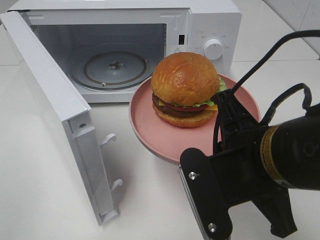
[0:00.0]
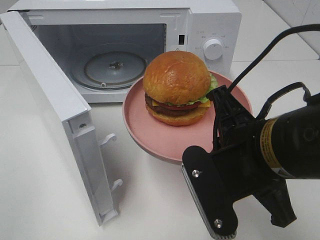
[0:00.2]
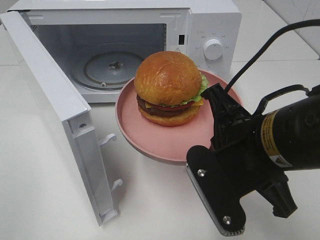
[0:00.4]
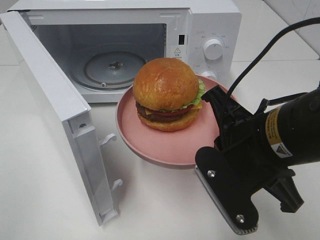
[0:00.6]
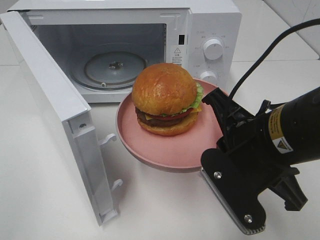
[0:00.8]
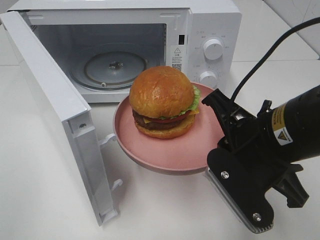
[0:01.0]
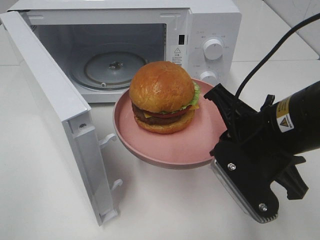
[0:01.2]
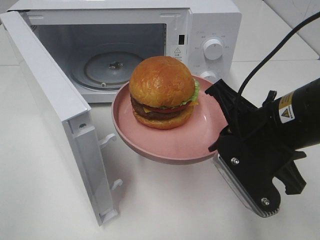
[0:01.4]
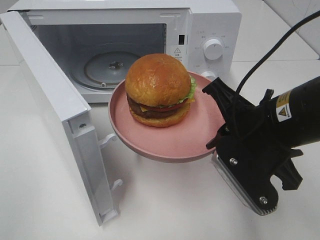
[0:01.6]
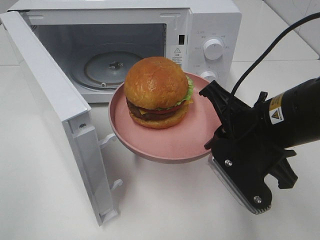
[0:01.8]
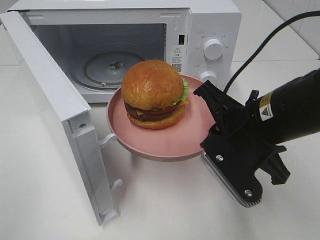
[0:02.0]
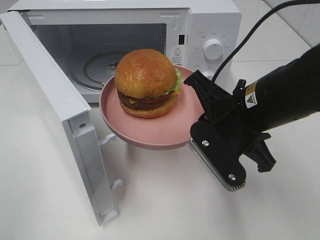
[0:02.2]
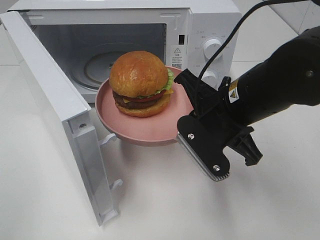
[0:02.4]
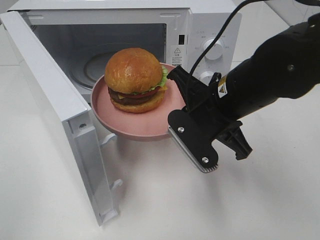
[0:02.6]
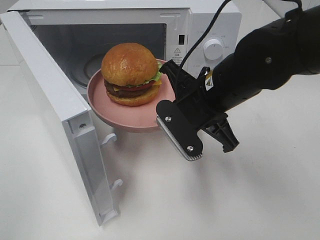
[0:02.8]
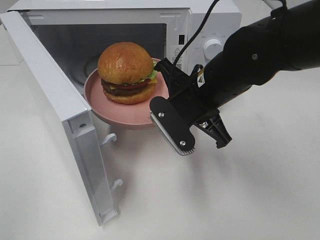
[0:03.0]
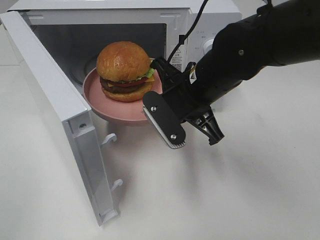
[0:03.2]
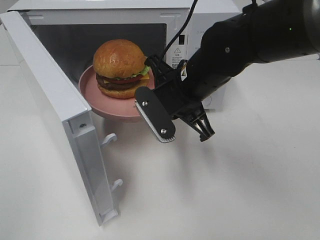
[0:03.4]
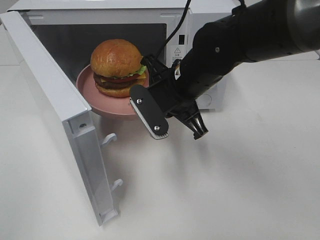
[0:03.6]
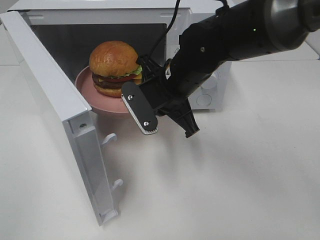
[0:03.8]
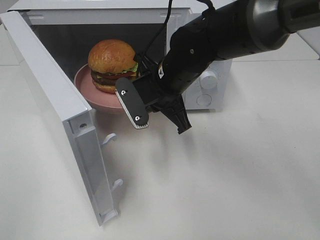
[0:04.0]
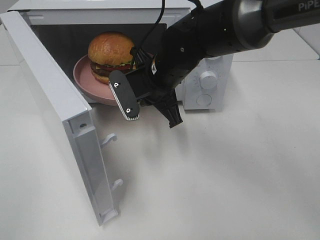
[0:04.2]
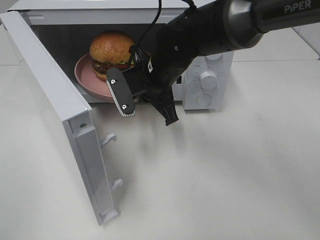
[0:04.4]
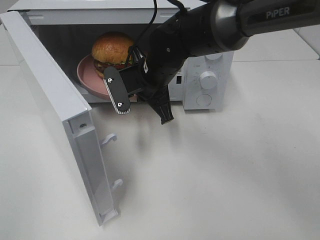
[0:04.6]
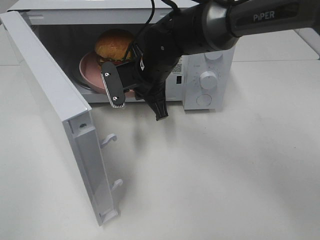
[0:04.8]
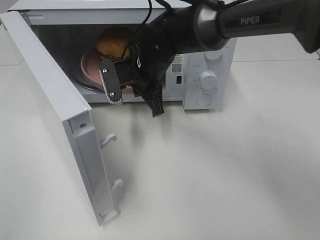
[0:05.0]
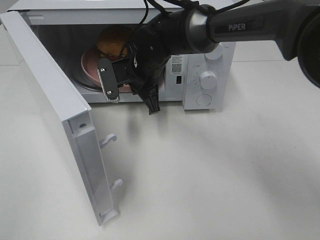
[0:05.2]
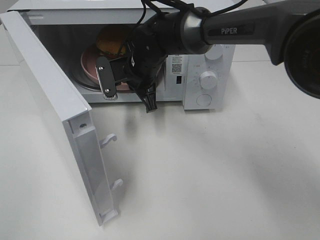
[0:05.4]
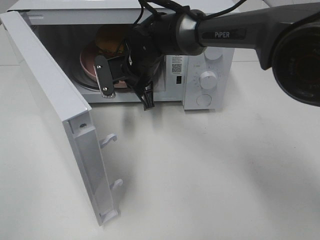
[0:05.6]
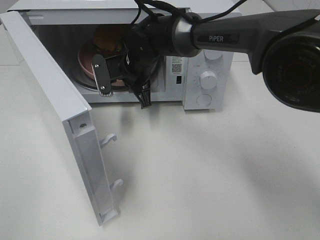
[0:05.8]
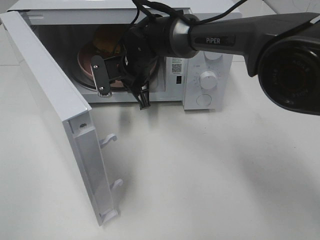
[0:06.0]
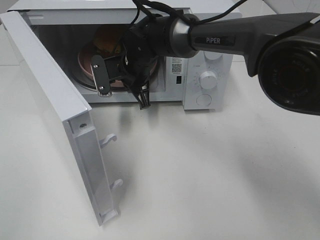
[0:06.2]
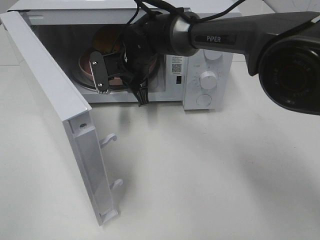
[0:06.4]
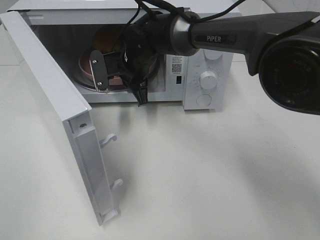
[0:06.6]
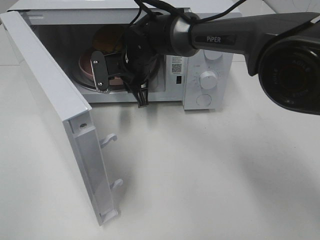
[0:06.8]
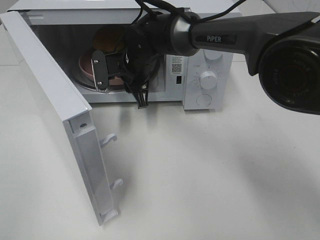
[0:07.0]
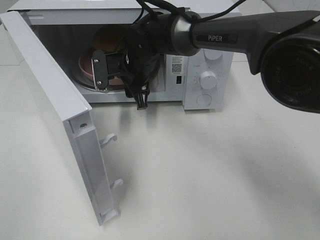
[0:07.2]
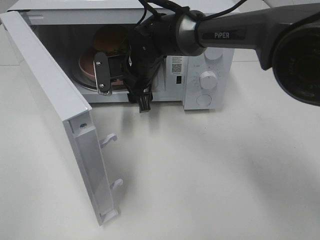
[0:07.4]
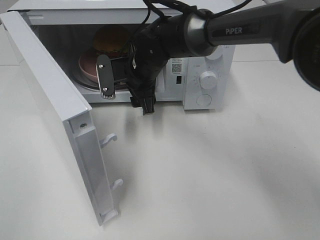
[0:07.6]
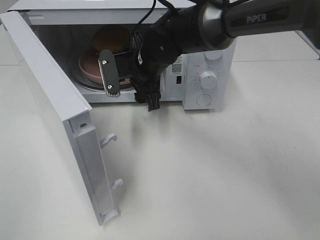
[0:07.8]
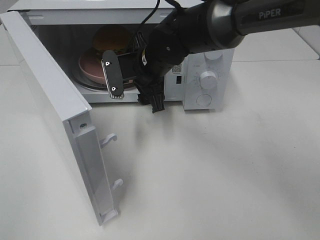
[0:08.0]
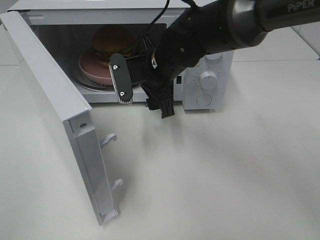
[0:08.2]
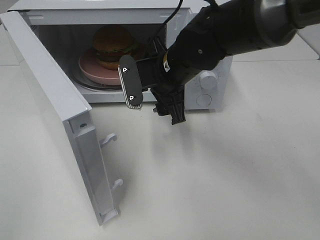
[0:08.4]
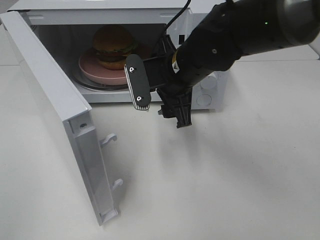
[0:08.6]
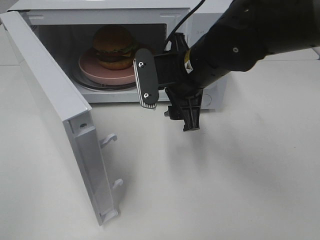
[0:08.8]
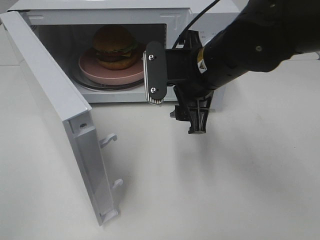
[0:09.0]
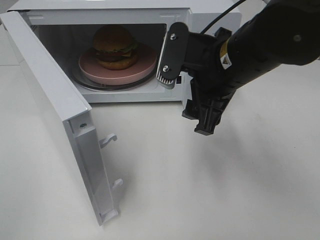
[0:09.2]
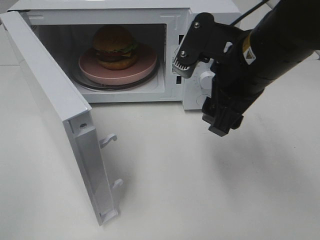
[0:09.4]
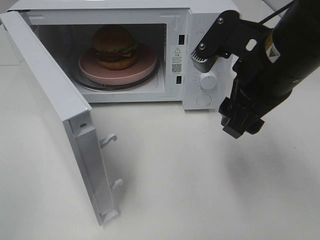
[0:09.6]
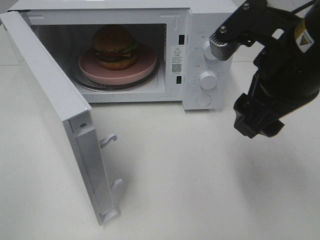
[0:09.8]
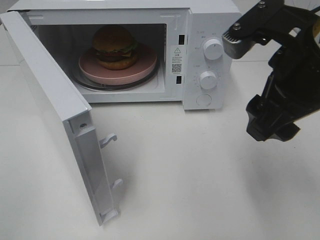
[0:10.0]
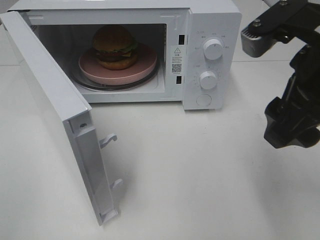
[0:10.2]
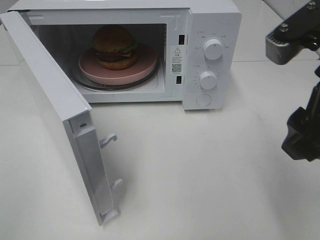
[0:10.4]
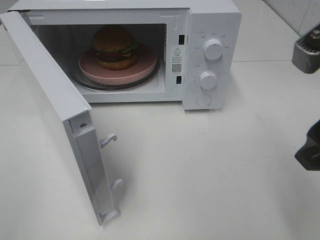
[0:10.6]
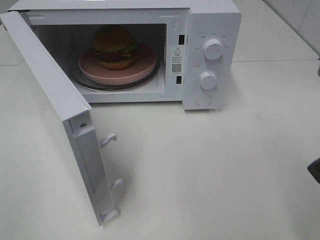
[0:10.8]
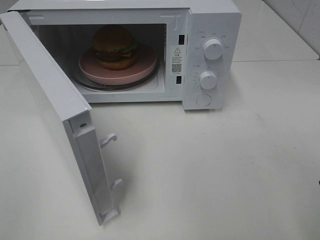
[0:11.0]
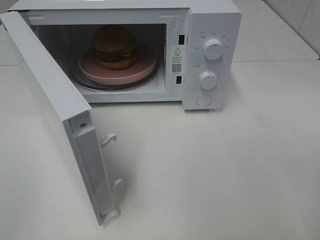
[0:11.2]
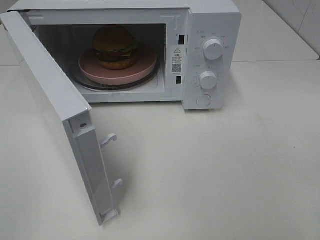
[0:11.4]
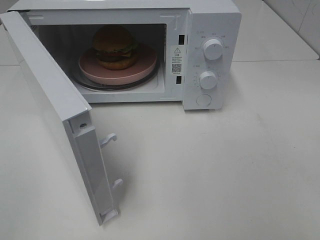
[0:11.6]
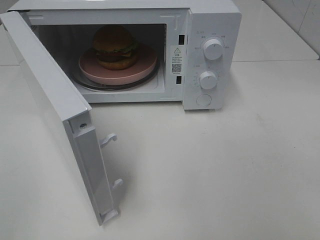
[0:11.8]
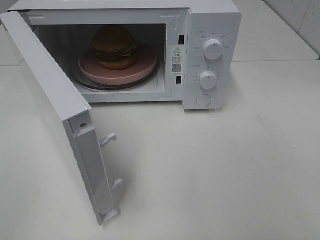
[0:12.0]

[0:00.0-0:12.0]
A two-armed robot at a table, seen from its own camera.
Task of the whole recording: Heat the burger.
Step, 0:00.0 to 0:06.8: Right hand: place the plate in the microwave.
0:00.0 to 0:01.6: The right gripper moves forward, approximately 5 cm.
0:01.6 to 0:03.0: The right gripper is displaced forward and to the left by about 10 cm.
0:03.0 to 0:04.4: The right gripper shifts about 10 cm forward and to the left.
0:04.4 to 0:06.0: The right gripper heads forward, covering some 10 cm.
0:06.0 to 0:07.6: The right gripper opens its fingers.
0:07.6 to 0:09.0: The right gripper travels backward, to the right and upward by approximately 15 cm.
0:09.0 to 0:10.4: The right gripper travels backward, to the right and upward by approximately 20 cm.
0:10.4 to 0:12.0: The right gripper moves backward and to the right, approximately 20 cm.

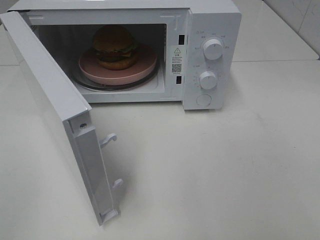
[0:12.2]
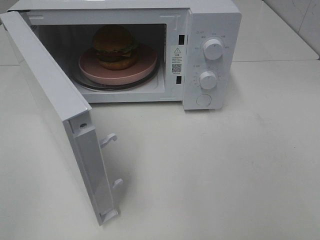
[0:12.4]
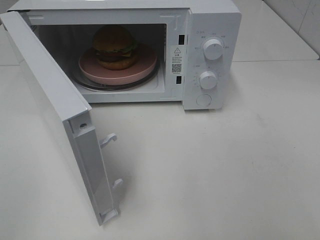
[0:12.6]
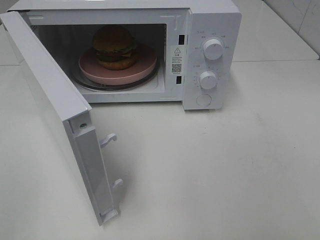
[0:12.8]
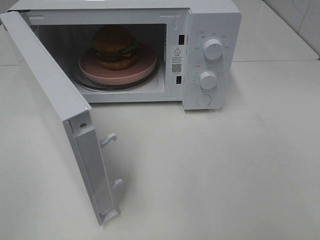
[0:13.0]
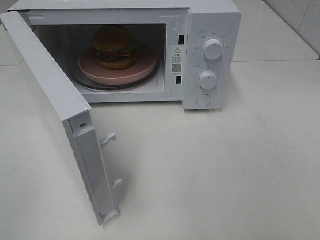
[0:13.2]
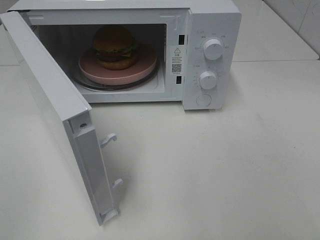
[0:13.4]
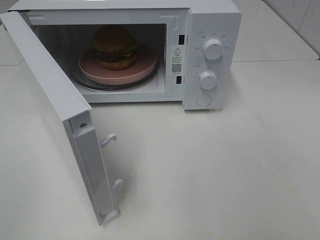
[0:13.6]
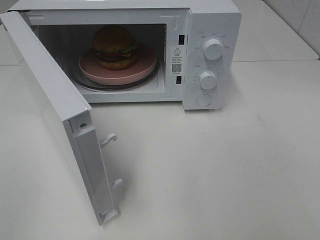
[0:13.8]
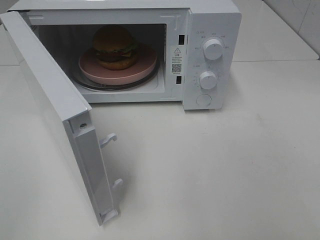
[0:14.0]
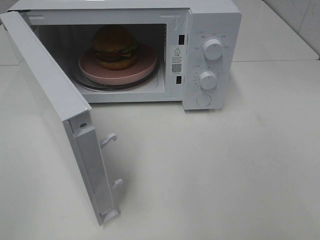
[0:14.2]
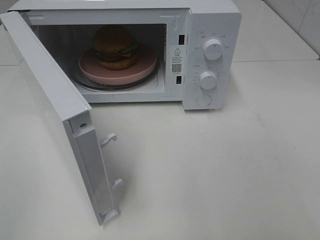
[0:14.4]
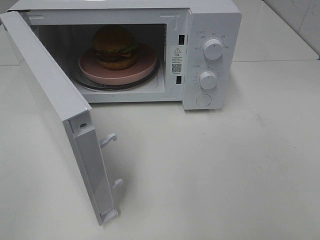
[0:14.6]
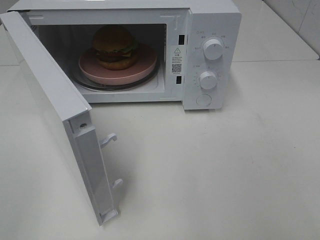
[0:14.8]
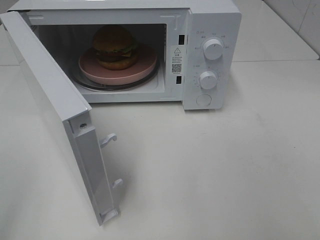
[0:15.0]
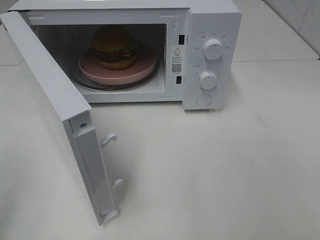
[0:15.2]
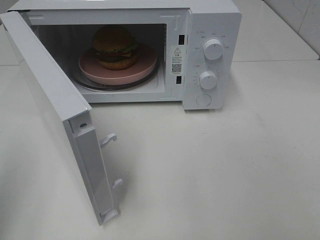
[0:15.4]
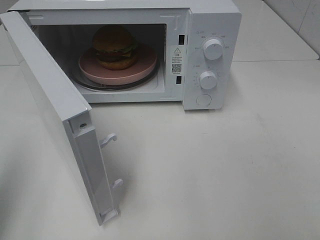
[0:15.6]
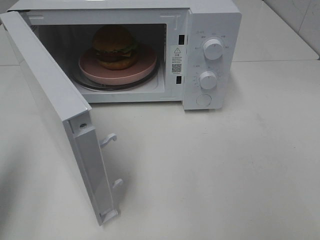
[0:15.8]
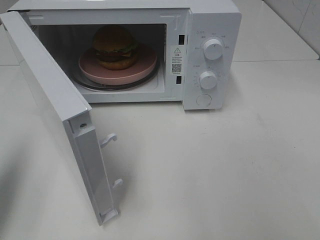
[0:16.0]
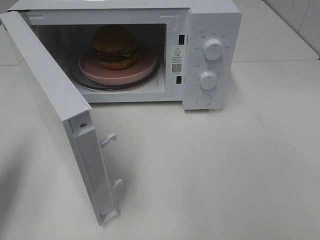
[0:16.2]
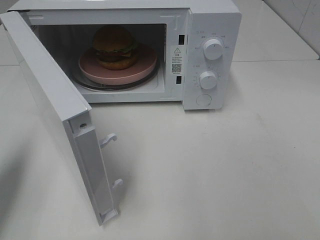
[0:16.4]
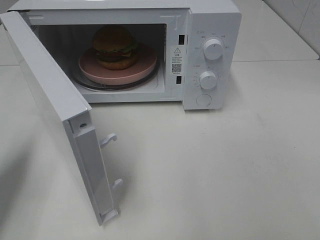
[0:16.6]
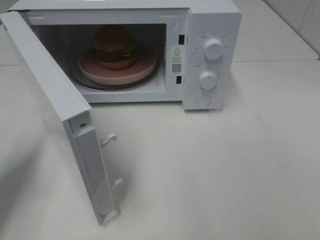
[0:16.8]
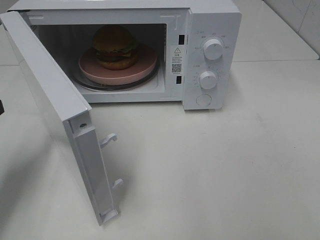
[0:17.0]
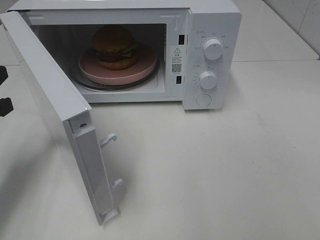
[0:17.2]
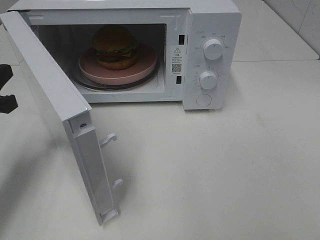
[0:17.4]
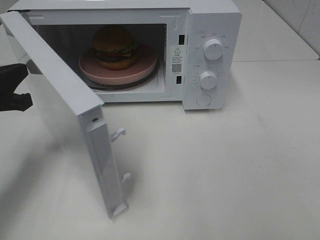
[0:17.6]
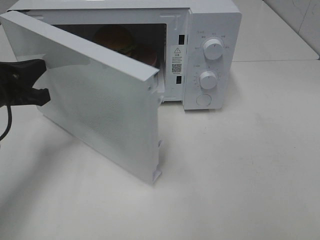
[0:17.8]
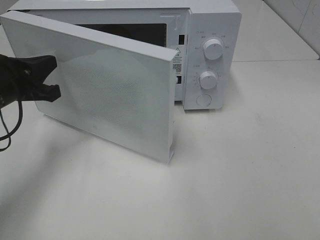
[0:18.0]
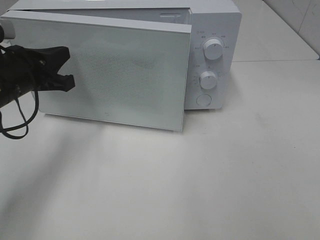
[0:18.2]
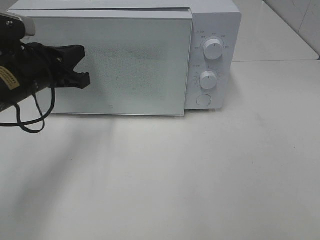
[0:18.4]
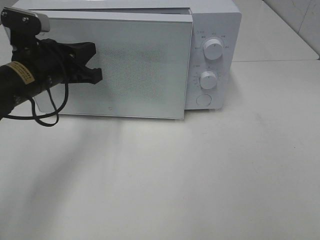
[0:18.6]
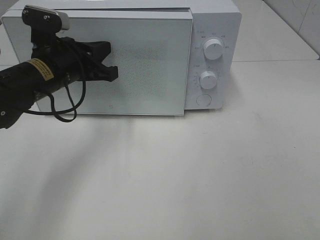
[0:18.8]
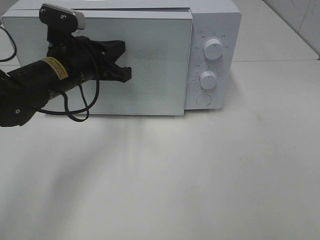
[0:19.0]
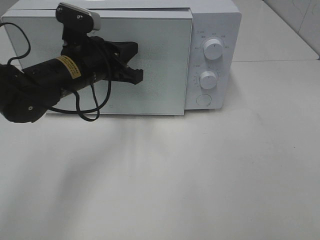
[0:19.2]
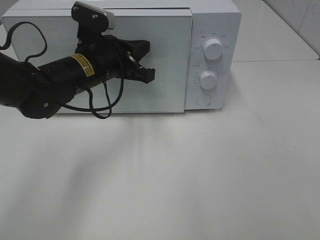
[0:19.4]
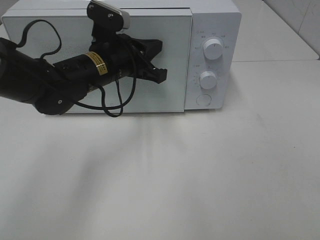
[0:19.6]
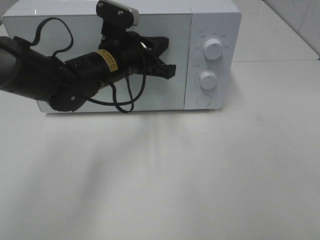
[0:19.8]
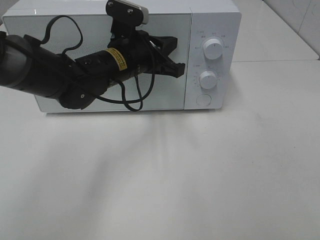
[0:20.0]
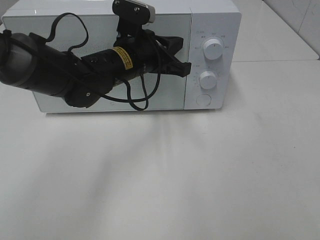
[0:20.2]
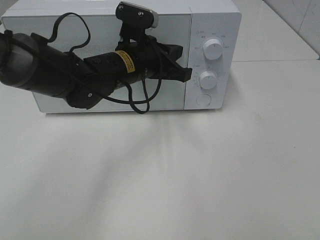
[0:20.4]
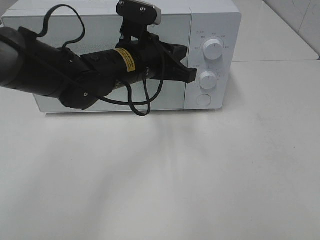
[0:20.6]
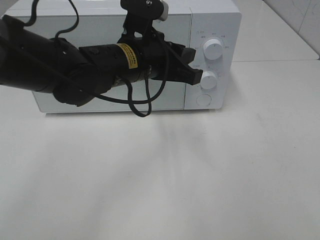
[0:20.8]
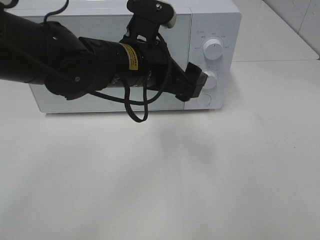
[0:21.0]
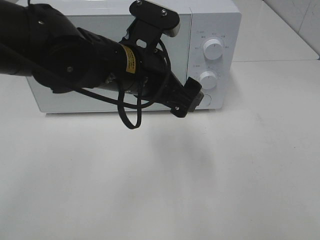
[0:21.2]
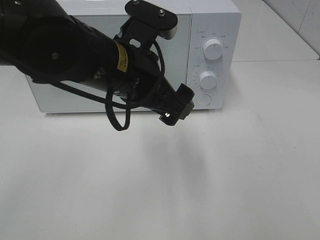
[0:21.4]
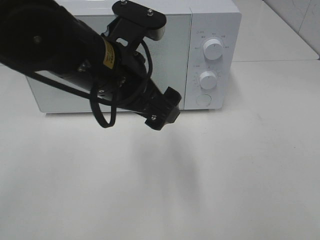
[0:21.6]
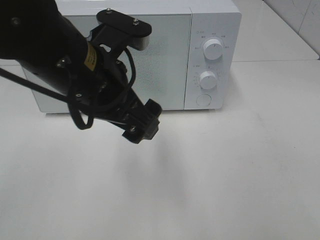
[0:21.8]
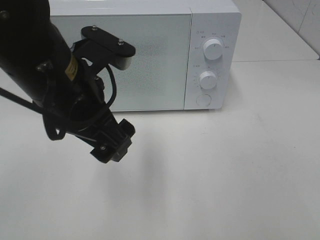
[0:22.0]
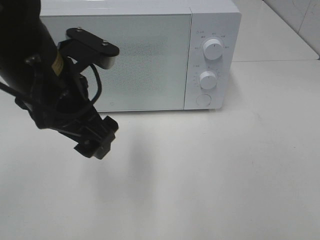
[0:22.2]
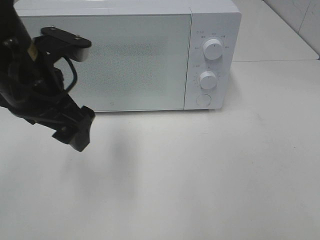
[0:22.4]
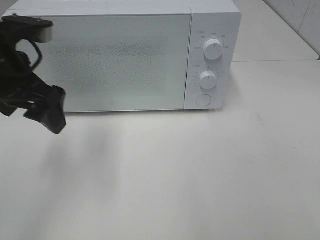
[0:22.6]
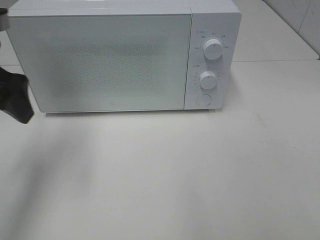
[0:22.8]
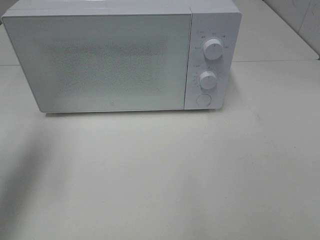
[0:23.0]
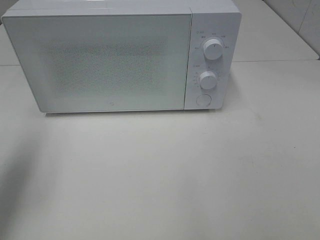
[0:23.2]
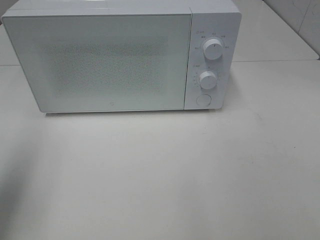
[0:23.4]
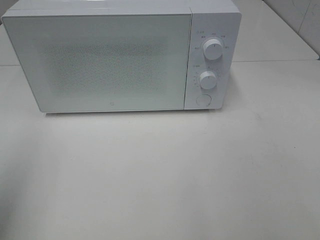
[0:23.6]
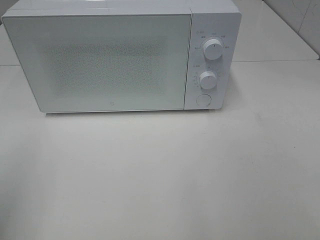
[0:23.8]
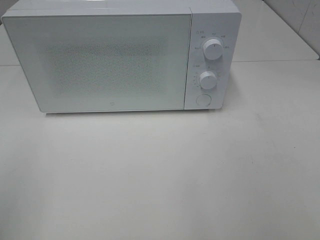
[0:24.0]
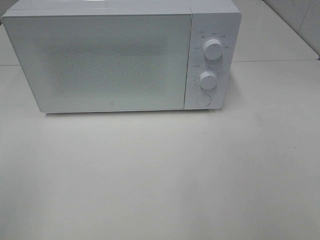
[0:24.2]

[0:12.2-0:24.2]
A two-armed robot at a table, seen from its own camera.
Task of the whole recording: Heat the burger.
Step, 0:12.2 to 0:20.2: Left hand: close the microwave door.
0:12.2 to 0:13.8: The two grippers keep their place.
0:15.2 to 0:16.6: The left gripper travels forward and downward by about 20 cm.
0:16.6 to 0:18.2: The left gripper heads forward and to the right, covering some 15 cm.
0:18.2 to 0:19.8: The left gripper travels to the right and forward by approximately 15 cm.
0:19.8 to 0:21.2: The left gripper heads backward and upward, covering approximately 10 cm, and opens.
0:21.2 to 0:22.6: The left gripper moves to the left, some 15 cm.
0:22.6 to 0:24.2: The left gripper is displaced backward and to the left by about 25 cm.
